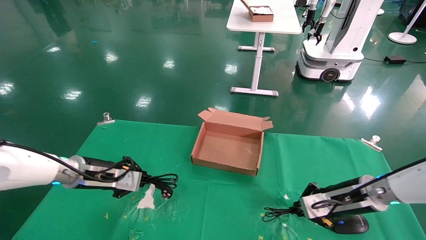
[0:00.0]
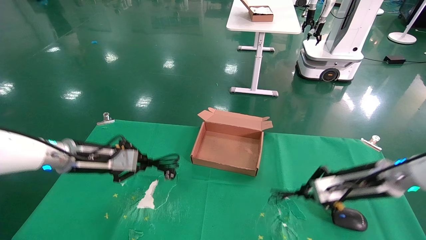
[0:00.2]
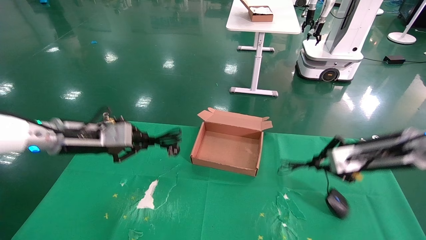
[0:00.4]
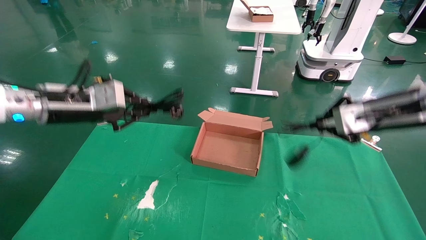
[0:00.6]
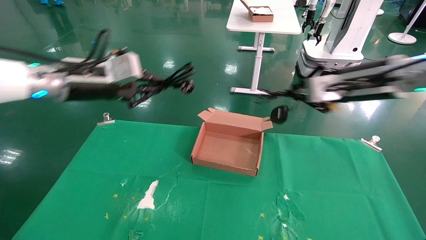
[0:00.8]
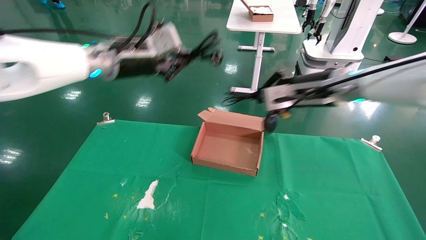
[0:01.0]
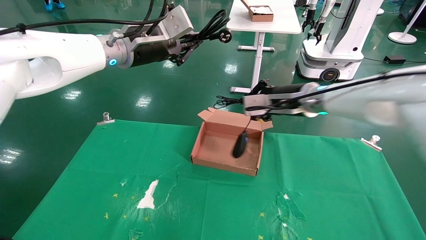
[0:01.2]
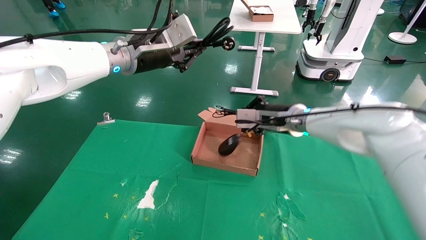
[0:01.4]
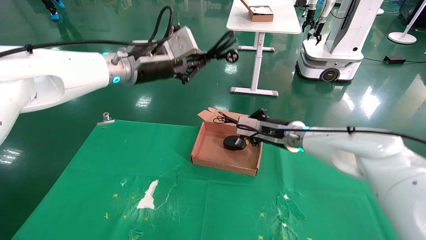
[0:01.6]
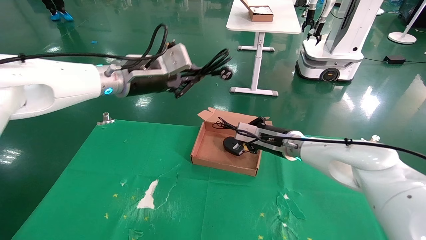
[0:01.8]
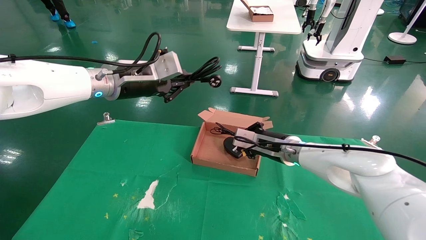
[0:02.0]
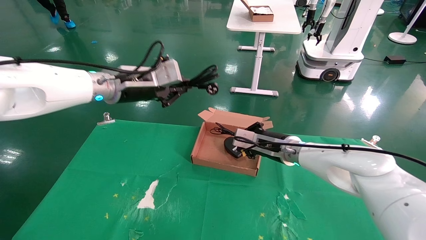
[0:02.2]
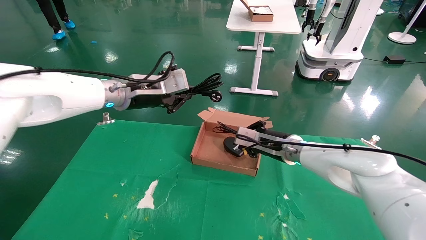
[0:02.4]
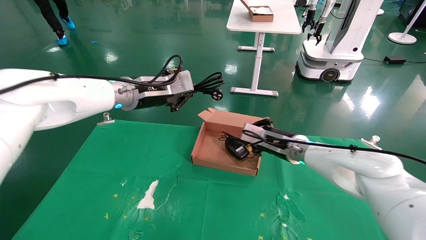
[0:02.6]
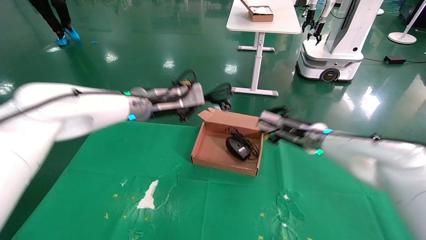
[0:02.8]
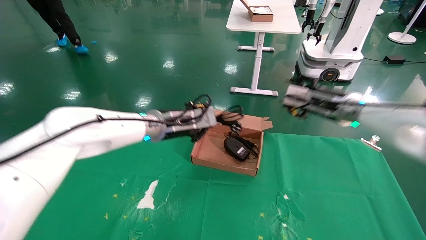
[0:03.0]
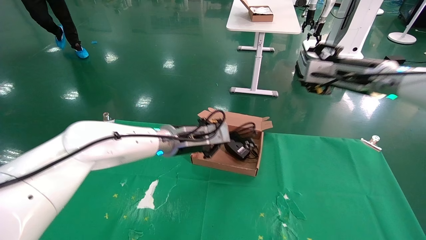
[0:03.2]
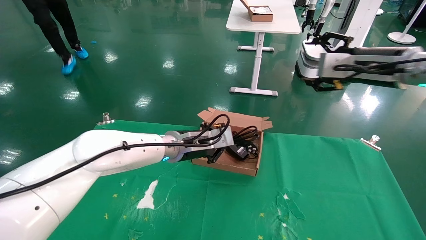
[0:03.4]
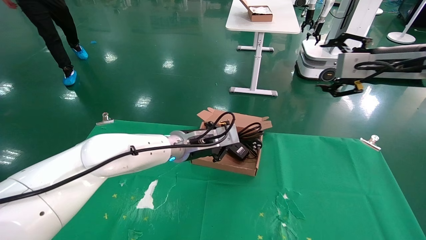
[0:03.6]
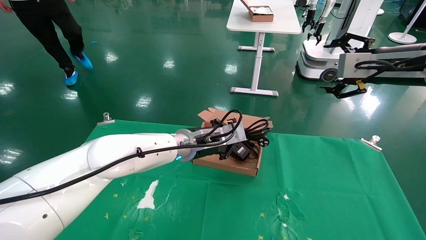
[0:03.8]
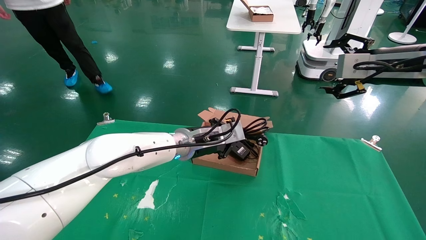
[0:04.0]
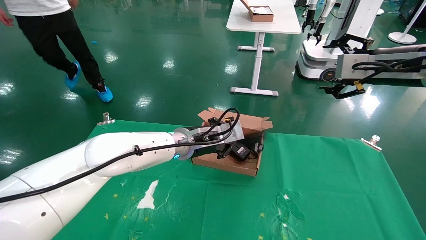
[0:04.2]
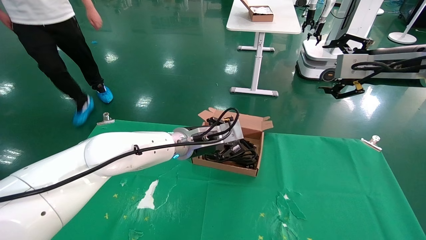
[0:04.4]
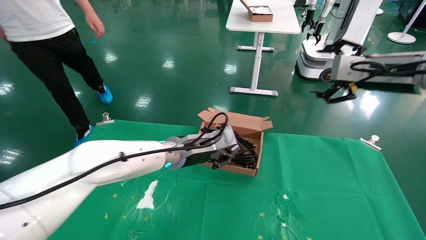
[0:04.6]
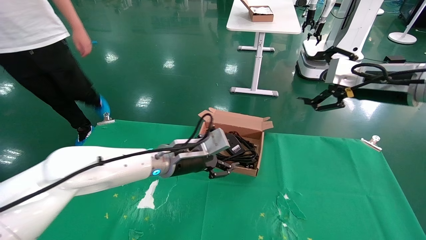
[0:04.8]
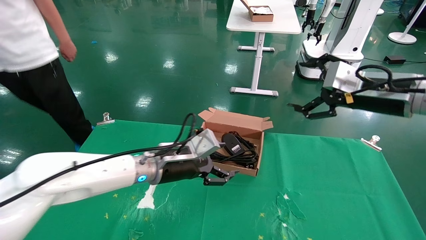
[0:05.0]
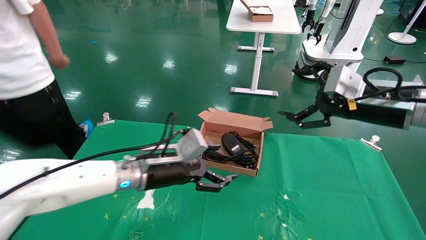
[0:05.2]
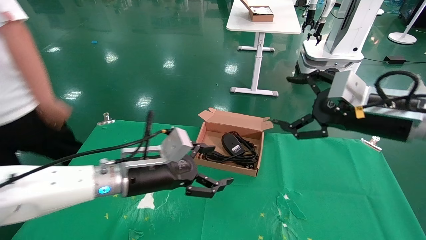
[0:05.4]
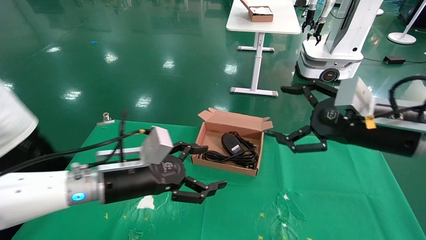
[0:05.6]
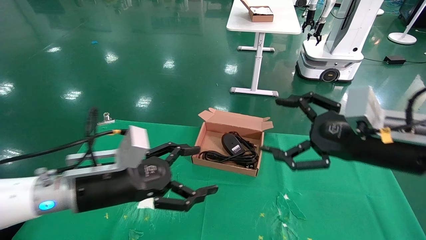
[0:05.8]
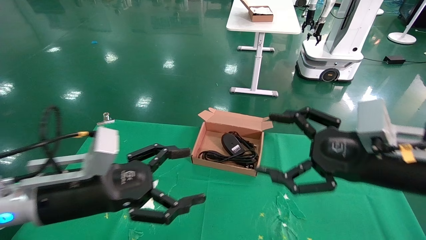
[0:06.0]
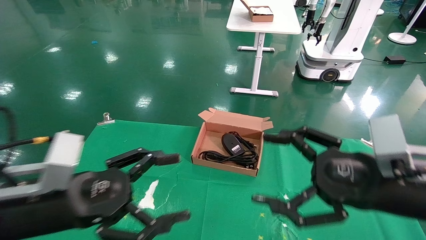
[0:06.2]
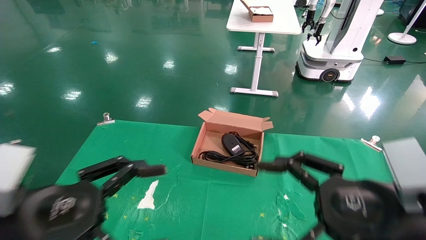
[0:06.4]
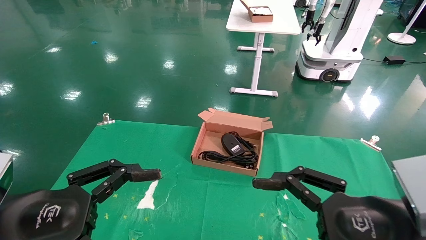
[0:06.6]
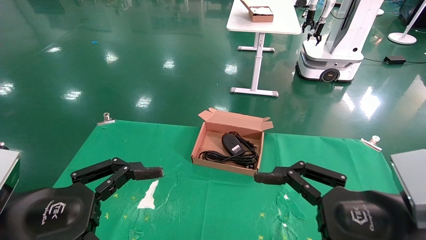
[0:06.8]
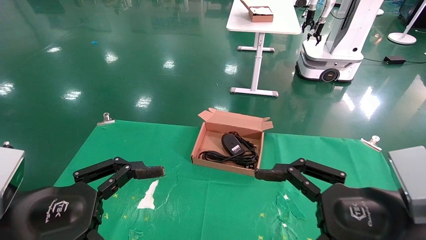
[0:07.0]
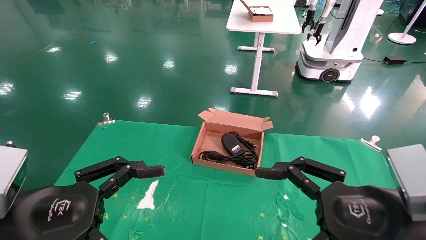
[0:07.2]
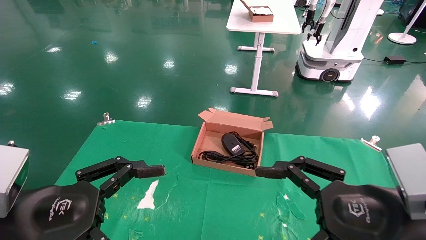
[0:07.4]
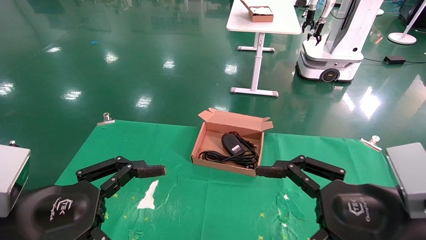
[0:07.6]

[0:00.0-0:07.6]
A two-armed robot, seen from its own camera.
Step, 0.0 to 5.4 s: Place the mouse and power cord into the box.
0.0 to 1.6 s: The right gripper heads to the left, forward and upward, covering approximately 20 cm, while the left gripper is displaced upward and to the right by roughly 25 cm.
1.6 to 3.0 s: The left gripper is displaced downward by about 10 cm; the right gripper heads to the right and upward, covering some 15 cm, and opens.
3.0 to 4.6 s: The left gripper travels downward by roughly 5 cm; the right gripper goes roughly 15 cm backward, upward and to the right, and opens its fingers.
4.6 to 6.0 s: The left gripper travels backward and to the left by approximately 25 cm, and opens its fingers, while the right gripper goes about 20 cm backward, downward and to the left.
6.0 to 7.6 s: Both grippers travel together backward, approximately 5 cm.

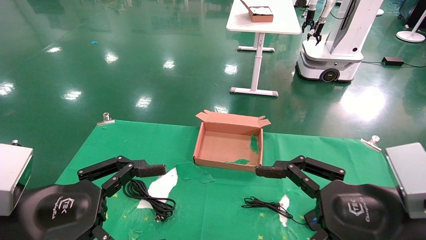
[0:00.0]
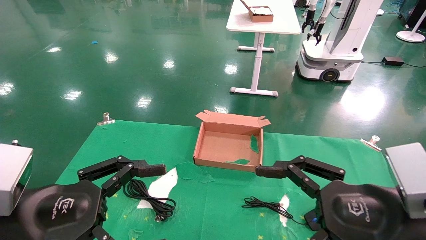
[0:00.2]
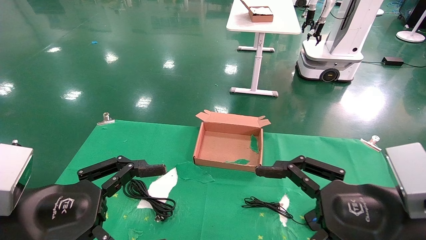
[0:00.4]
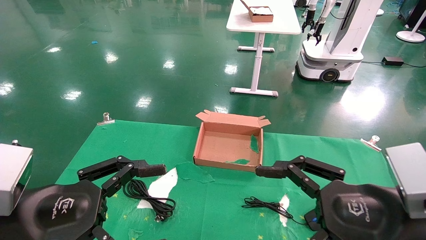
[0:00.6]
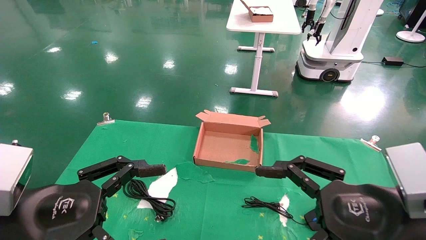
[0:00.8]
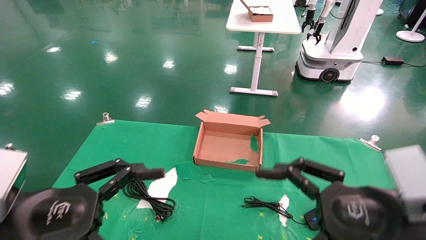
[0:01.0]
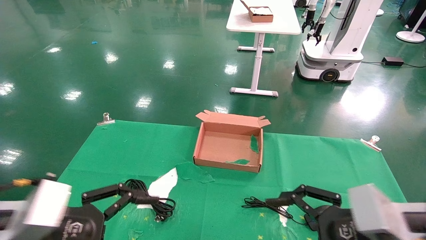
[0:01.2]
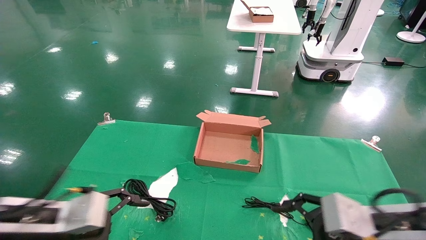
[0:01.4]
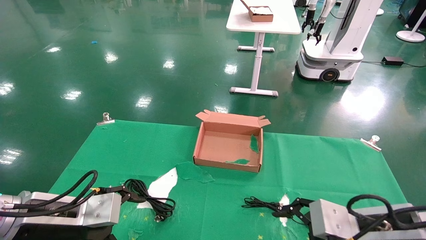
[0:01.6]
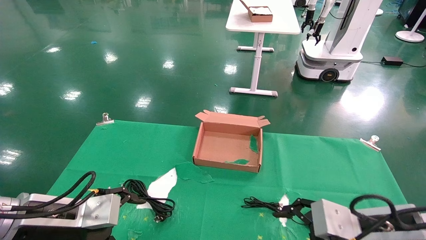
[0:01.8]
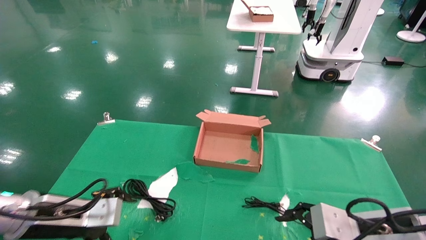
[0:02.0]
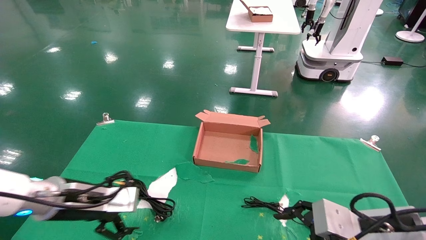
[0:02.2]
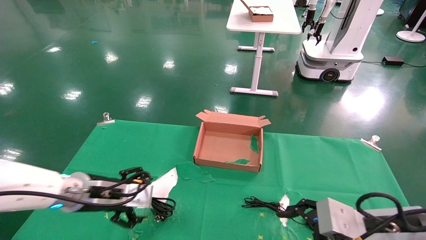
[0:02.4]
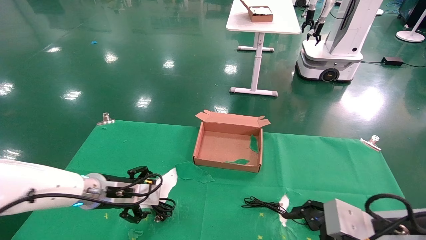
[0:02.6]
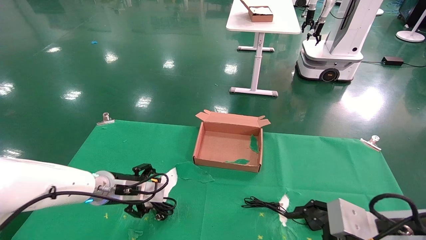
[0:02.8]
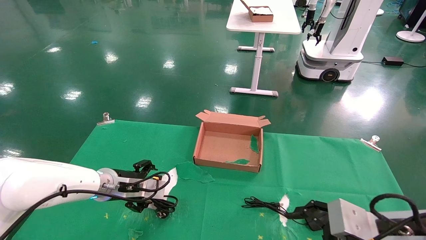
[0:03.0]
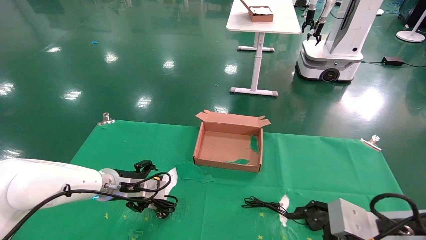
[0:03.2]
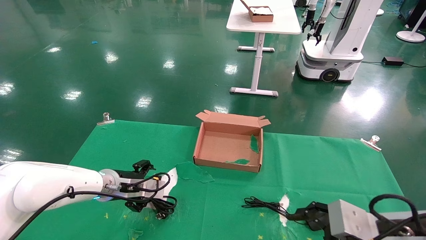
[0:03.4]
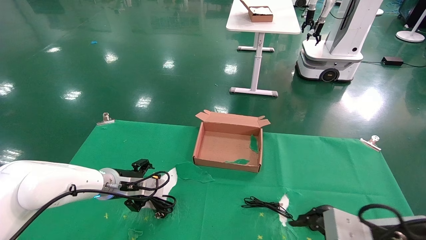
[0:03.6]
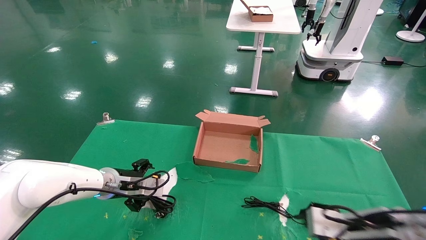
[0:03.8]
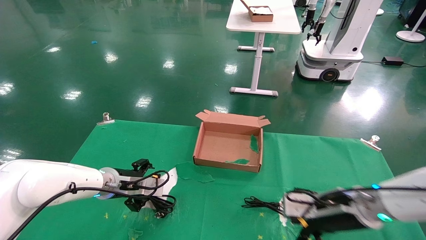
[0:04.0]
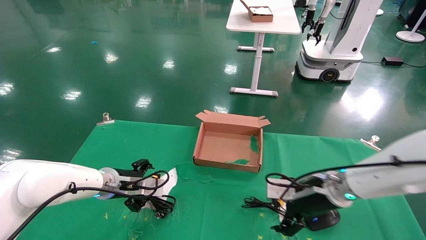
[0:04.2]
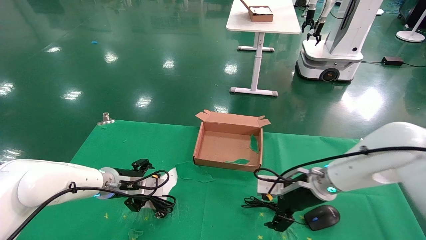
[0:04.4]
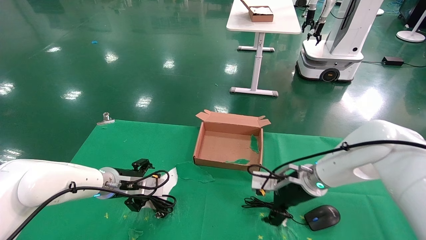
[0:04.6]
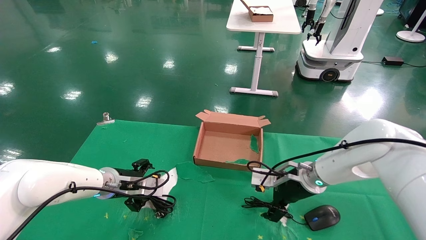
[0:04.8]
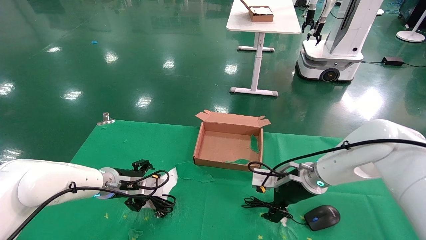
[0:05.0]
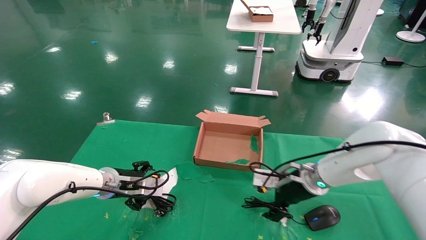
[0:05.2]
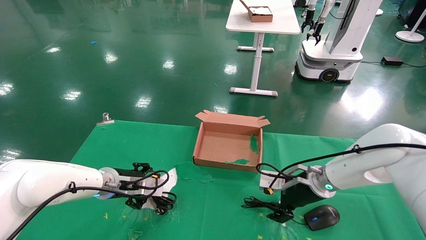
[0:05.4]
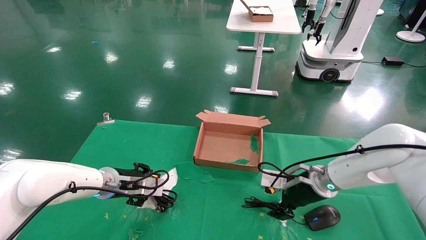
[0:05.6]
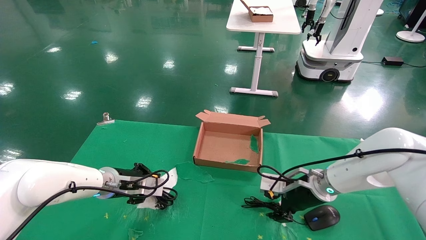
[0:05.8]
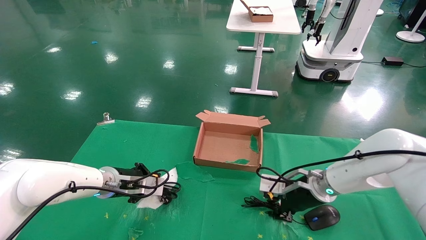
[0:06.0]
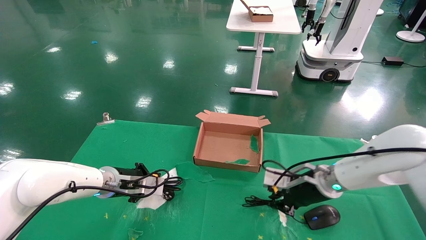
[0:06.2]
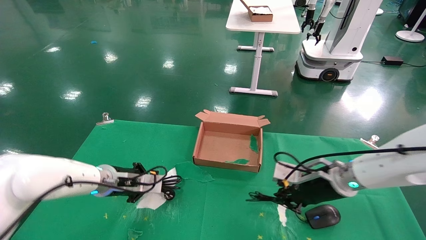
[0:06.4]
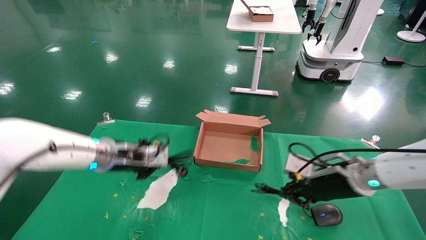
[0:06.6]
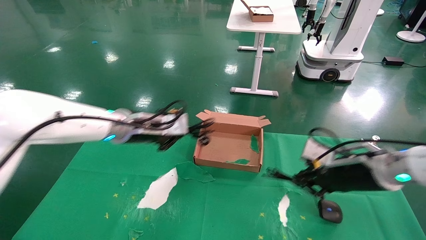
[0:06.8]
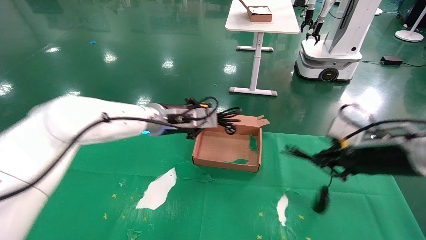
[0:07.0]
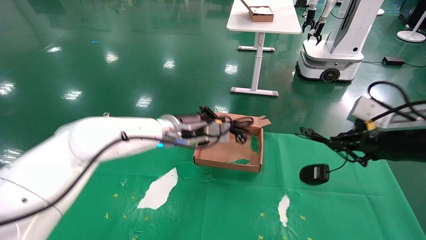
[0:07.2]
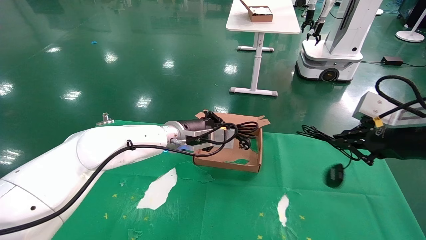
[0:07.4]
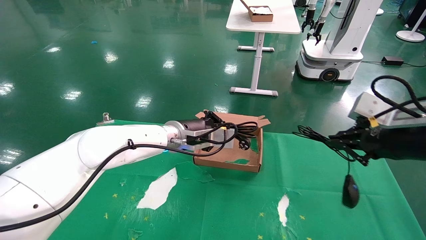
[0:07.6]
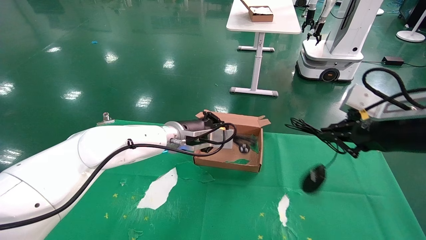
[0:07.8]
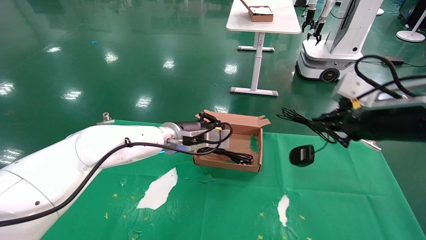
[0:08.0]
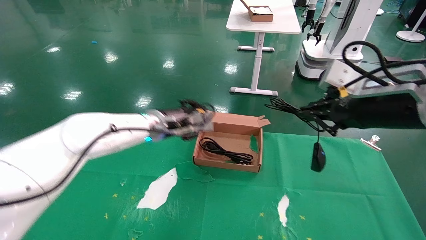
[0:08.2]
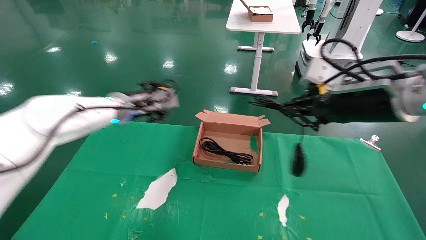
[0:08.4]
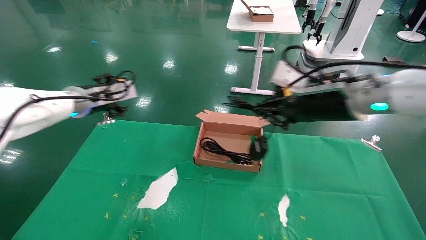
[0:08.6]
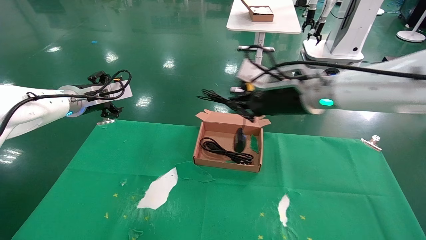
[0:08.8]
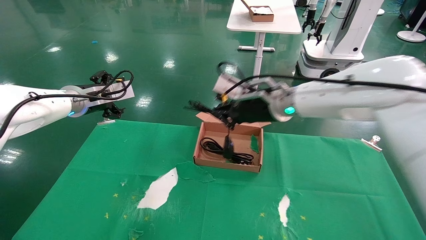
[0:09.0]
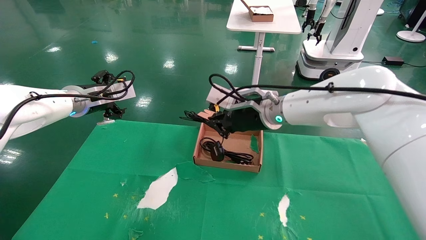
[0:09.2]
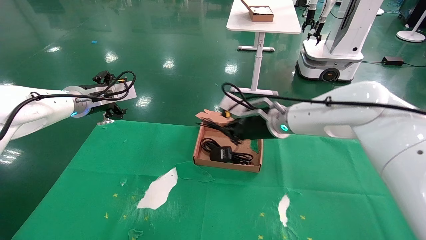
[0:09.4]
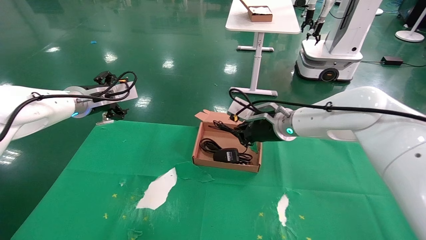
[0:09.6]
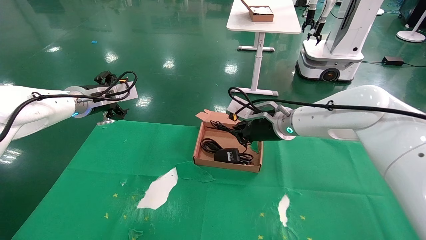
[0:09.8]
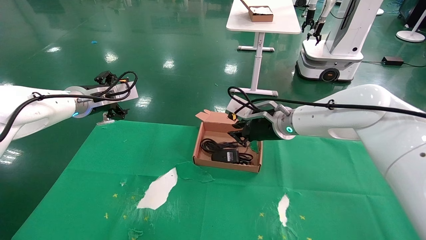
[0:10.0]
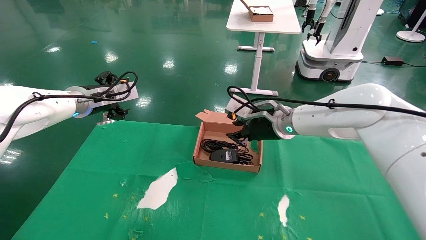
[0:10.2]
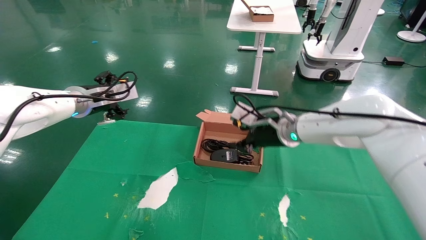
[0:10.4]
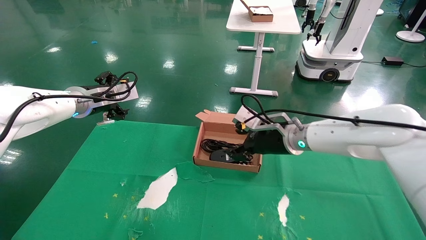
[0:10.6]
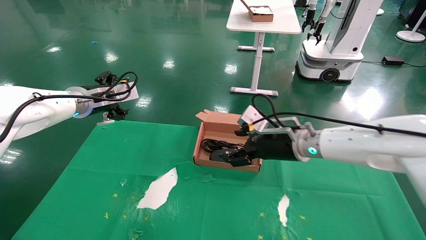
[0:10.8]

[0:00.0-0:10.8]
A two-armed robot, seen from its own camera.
Step, 1.4 to 6.2 s: Grab and lift both the mouse and power cord from the accessory packaging area at the same time.
Step, 6.4 to 10.4 s: Place the mouse and power cord into the box.
0.0 to 1.6 s: The left gripper heads forward, covering roughly 10 cm, while the right gripper is displaced downward and forward by some 10 cm.
1.6 to 3.0 s: The left gripper heads forward, covering some 15 cm.
3.0 to 4.6 s: The right gripper goes about 20 cm forward and to the left.
4.6 to 6.2 s: The left gripper closes. The right gripper closes.
6.2 to 7.8 s: The left gripper goes roughly 20 cm to the right and upward; the right gripper heads upward, backward and to the right, covering approximately 20 cm.
7.8 to 9.2 s: The left gripper shifts roughly 20 cm to the left, and opens up. Meanwhile the right gripper travels to the left and forward by some 25 cm.
9.2 to 10.8 s: The right gripper goes approximately 5 cm downward, and opens.
